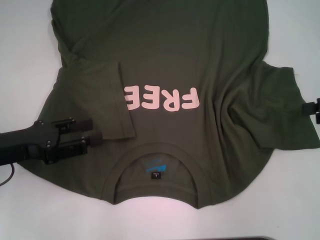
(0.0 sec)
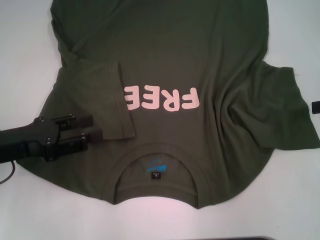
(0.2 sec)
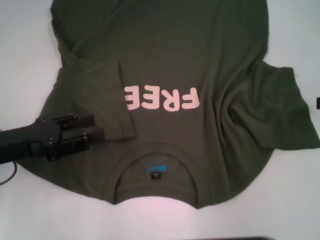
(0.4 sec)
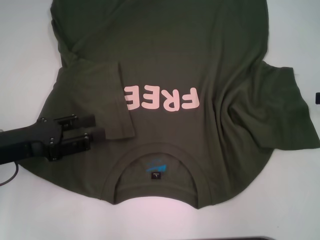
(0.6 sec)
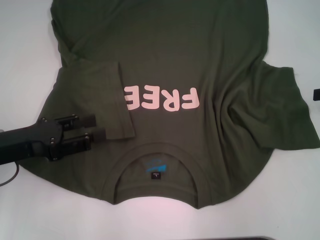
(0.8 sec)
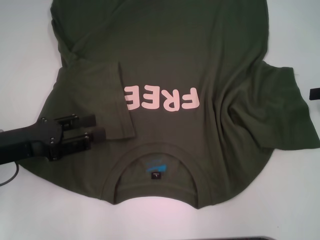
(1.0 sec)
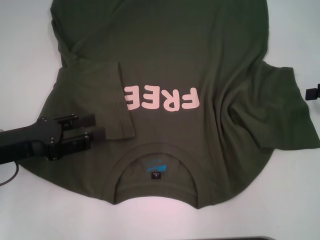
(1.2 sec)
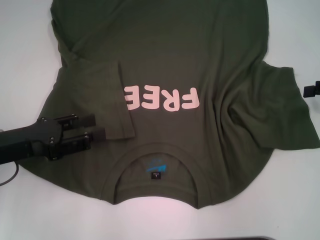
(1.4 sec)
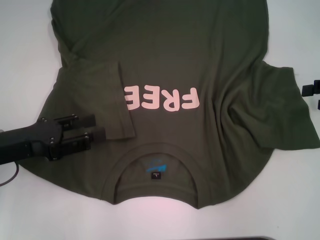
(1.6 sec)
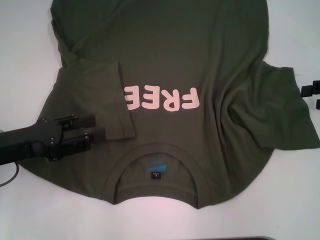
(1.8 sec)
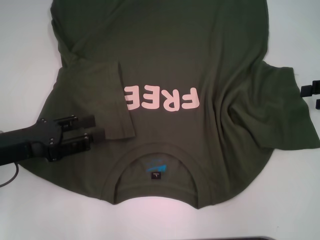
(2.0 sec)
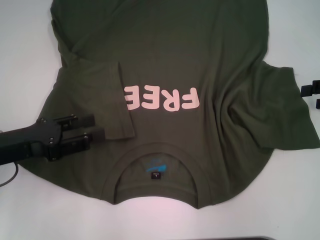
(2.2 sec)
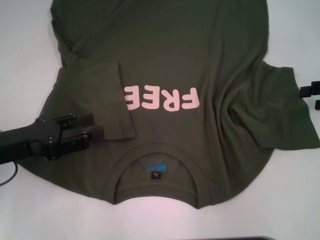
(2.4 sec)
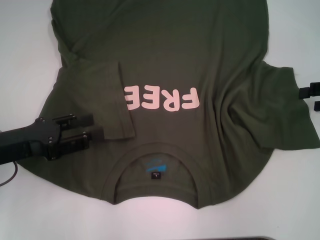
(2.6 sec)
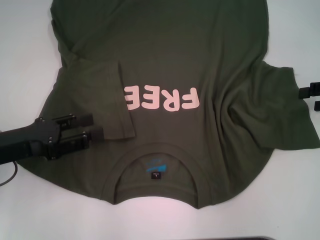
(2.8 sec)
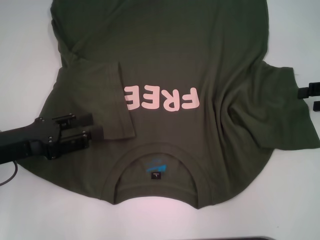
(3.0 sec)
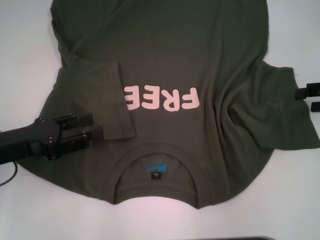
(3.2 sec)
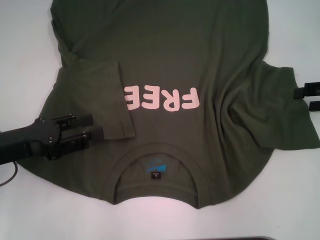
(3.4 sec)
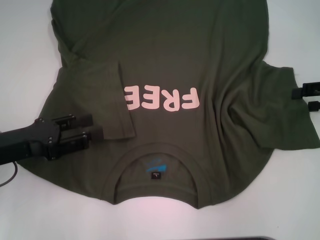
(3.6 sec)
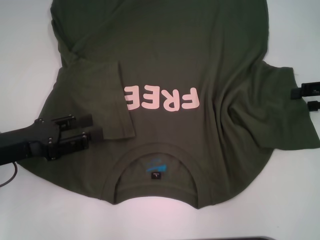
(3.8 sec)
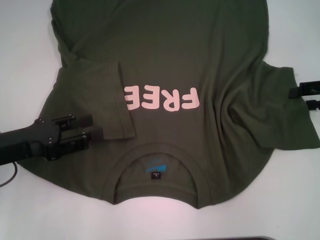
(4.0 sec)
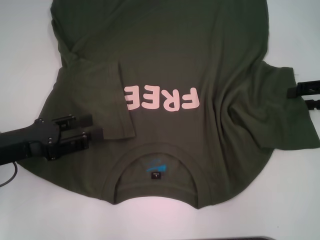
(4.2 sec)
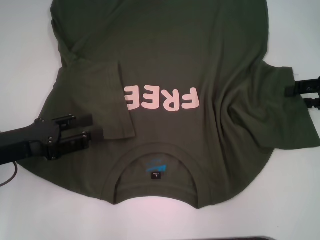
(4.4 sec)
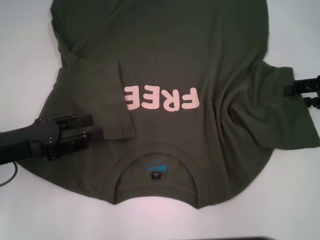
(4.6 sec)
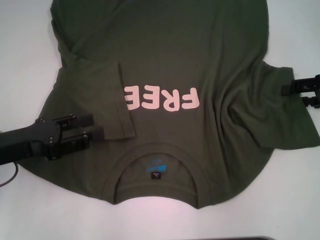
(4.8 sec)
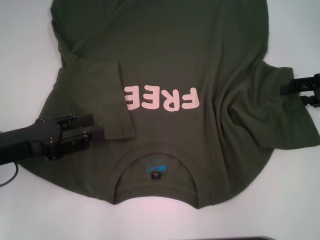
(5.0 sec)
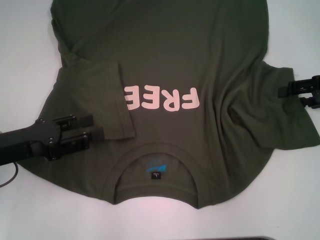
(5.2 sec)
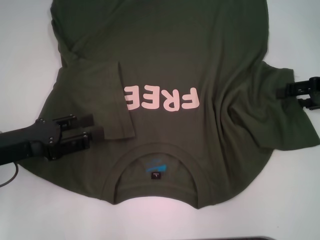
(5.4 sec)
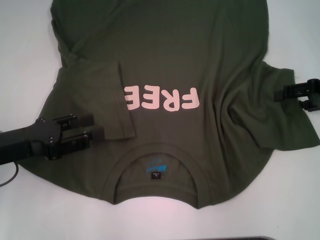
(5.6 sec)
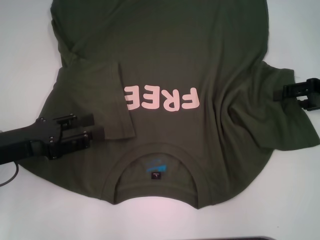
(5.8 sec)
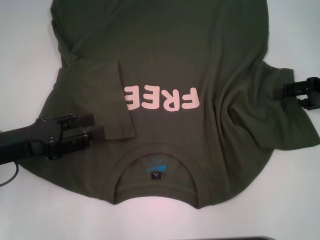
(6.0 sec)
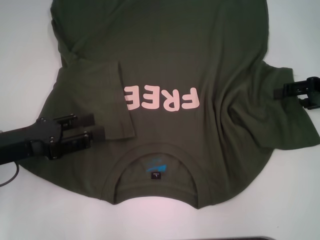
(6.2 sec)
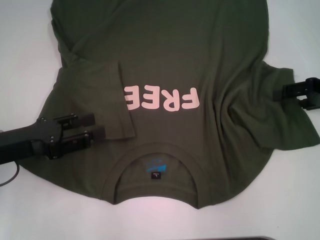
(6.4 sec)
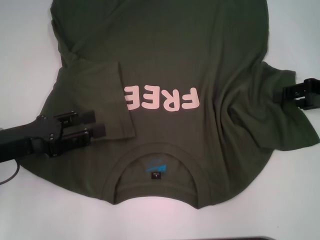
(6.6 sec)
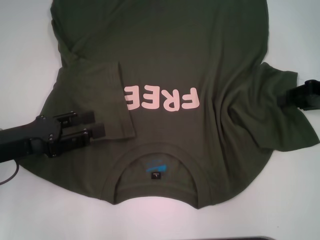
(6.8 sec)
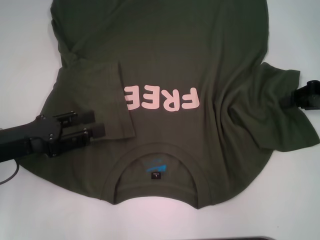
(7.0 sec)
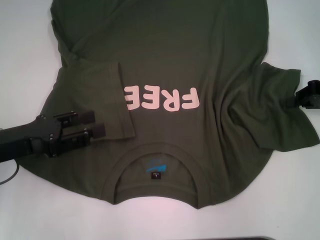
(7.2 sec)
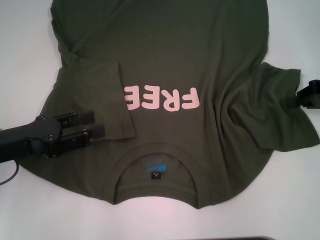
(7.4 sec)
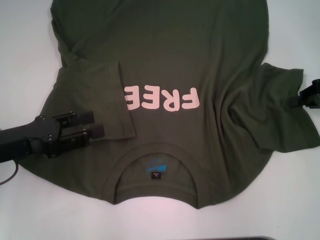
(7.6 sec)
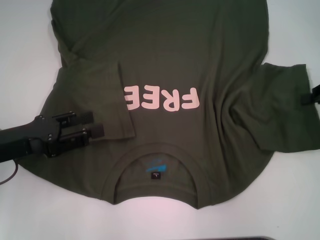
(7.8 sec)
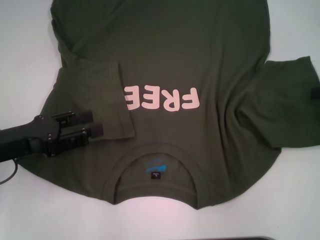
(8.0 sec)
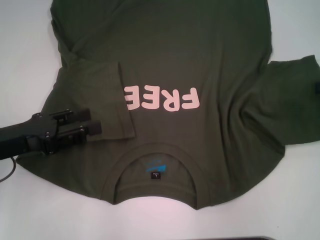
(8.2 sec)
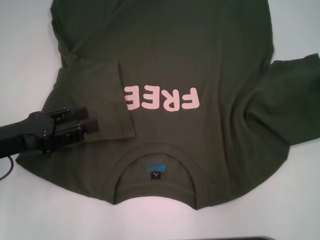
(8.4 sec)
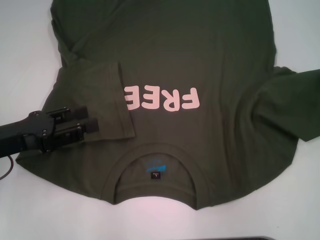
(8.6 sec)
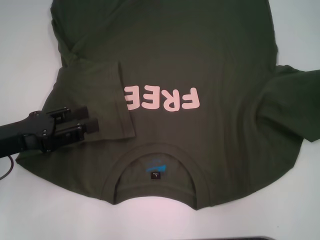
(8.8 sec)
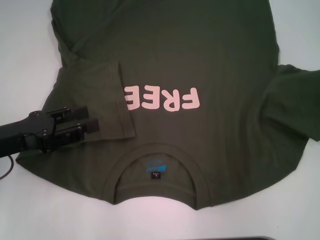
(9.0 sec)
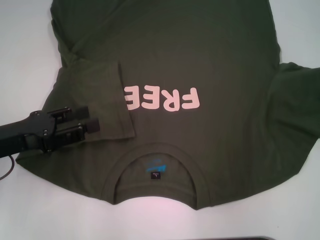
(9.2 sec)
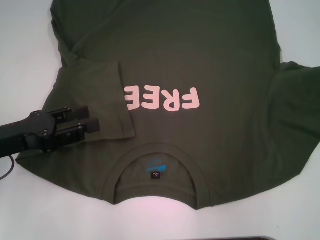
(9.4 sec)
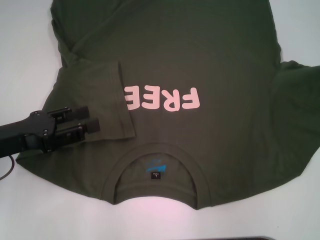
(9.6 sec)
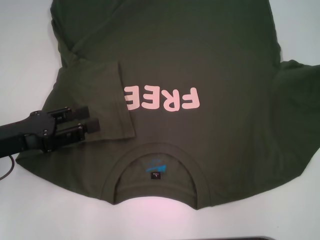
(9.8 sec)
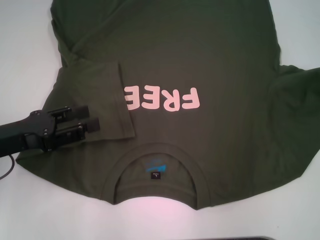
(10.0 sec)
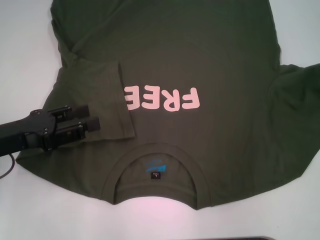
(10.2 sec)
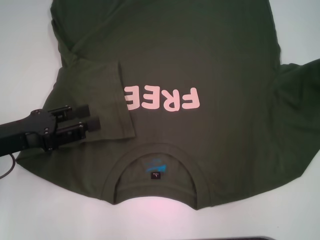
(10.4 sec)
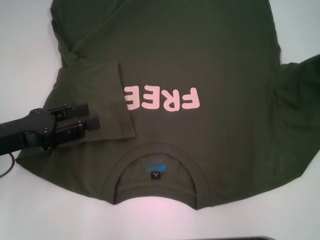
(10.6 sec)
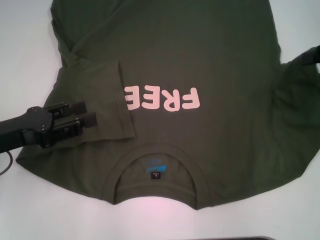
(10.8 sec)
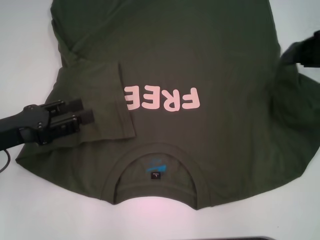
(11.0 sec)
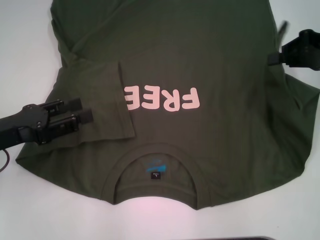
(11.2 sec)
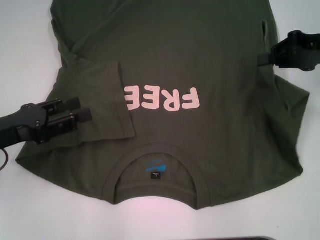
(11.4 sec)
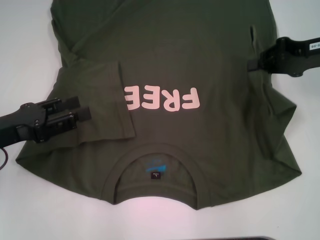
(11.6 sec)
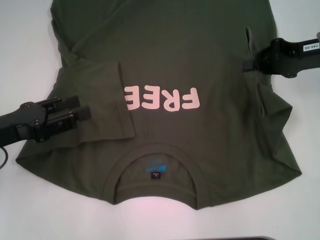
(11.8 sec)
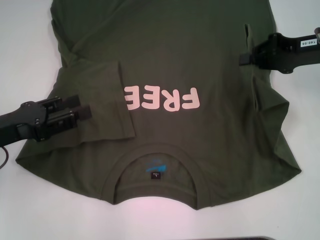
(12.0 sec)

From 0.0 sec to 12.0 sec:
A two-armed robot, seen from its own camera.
From 0.0 sec to 1.6 sec: There are only small adjustments of the grippers.
From 1.6 sec to 3.0 sec: Both grippers stay about where they are.
From 3.0 sec to 4.4 sec: The grippers make only small movements.
From 6.0 sec to 7.6 sec: The right gripper closes its fingers.
From 7.6 sec to 9.0 sec: The right gripper shifts roughly 5 cm to the right.
From 9.0 sec to 10.4 sec: There are only small adjustments of the grippers.
From 10.4 sec to 12.0 sec: The right gripper is displaced to the left by roughly 10 cm.

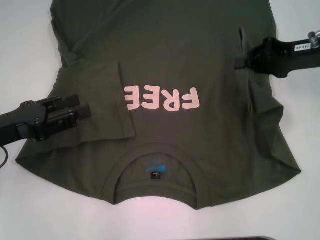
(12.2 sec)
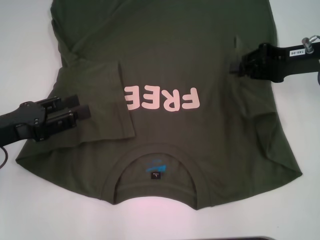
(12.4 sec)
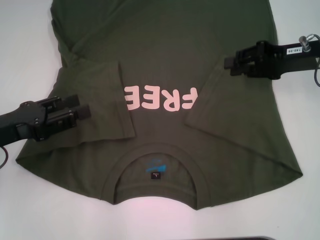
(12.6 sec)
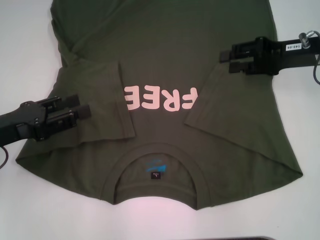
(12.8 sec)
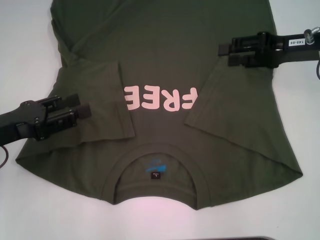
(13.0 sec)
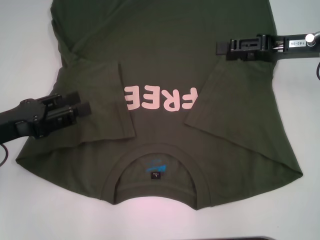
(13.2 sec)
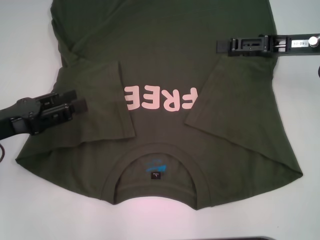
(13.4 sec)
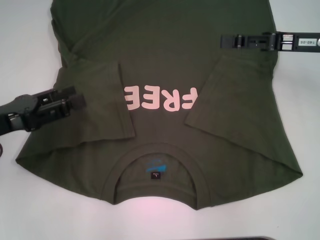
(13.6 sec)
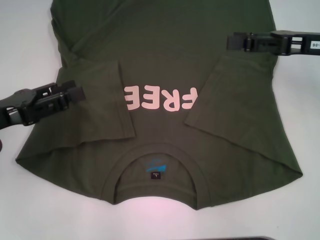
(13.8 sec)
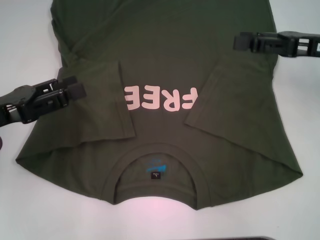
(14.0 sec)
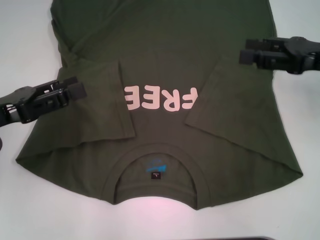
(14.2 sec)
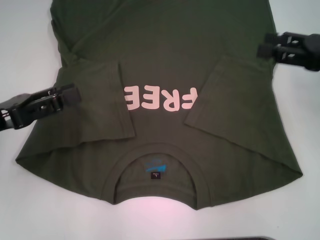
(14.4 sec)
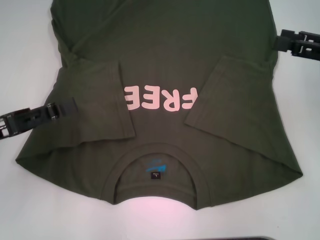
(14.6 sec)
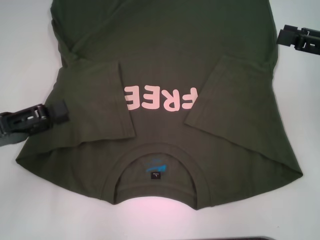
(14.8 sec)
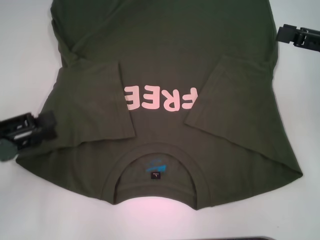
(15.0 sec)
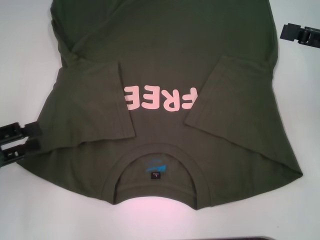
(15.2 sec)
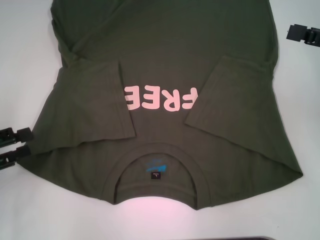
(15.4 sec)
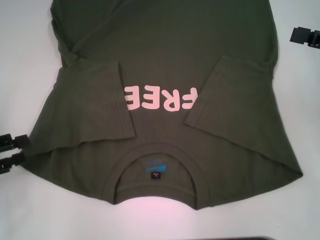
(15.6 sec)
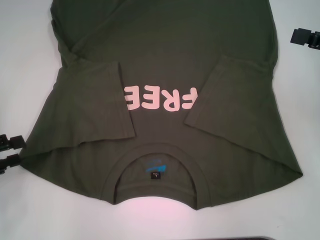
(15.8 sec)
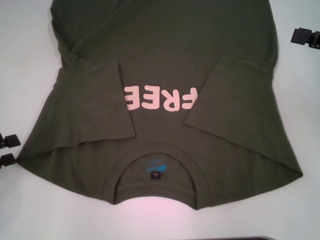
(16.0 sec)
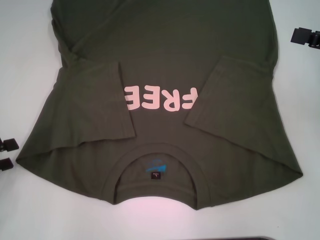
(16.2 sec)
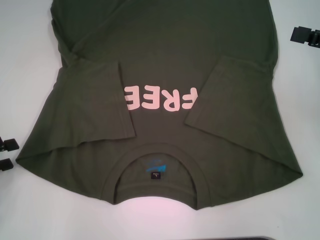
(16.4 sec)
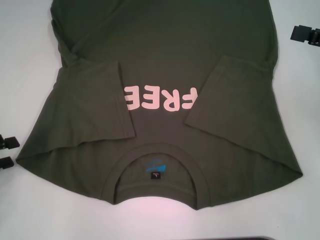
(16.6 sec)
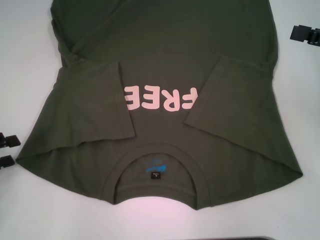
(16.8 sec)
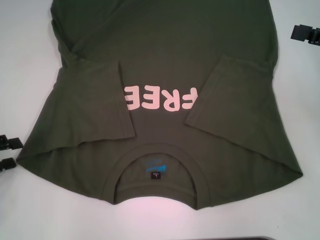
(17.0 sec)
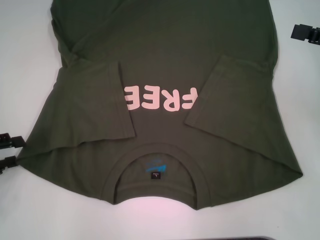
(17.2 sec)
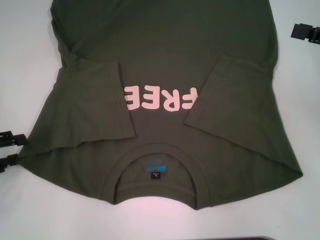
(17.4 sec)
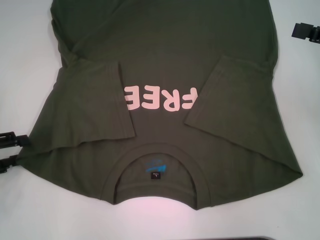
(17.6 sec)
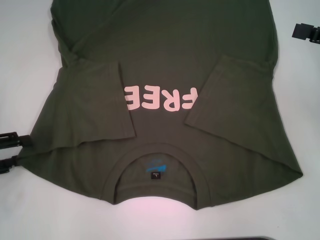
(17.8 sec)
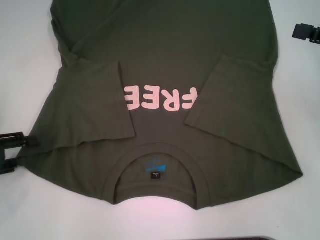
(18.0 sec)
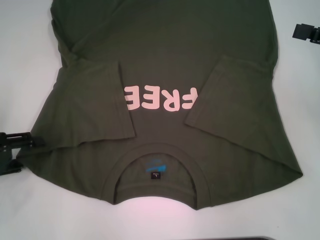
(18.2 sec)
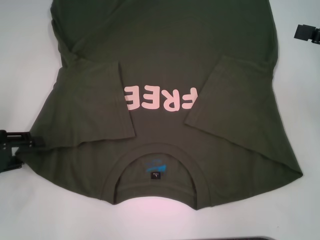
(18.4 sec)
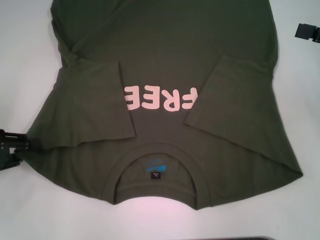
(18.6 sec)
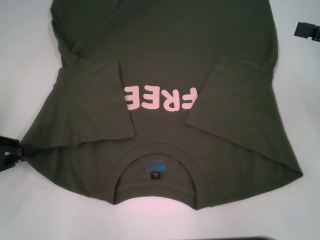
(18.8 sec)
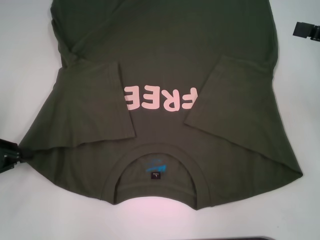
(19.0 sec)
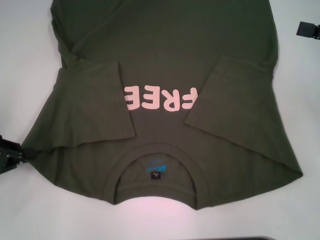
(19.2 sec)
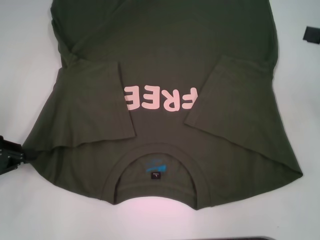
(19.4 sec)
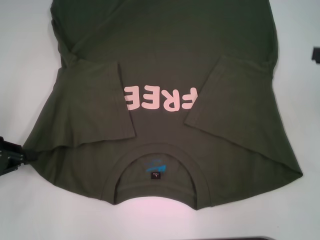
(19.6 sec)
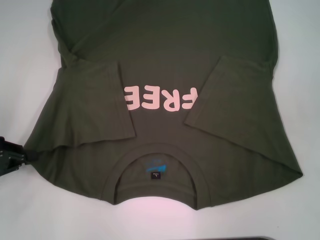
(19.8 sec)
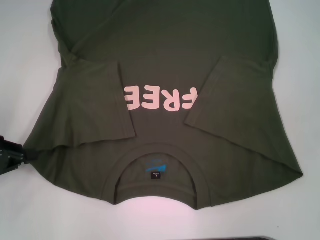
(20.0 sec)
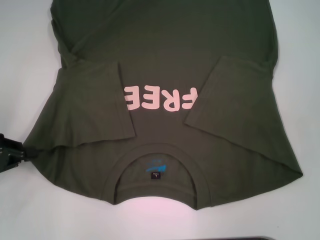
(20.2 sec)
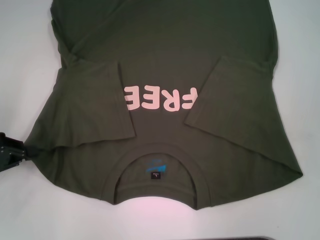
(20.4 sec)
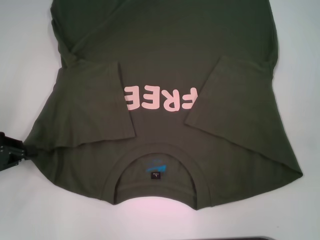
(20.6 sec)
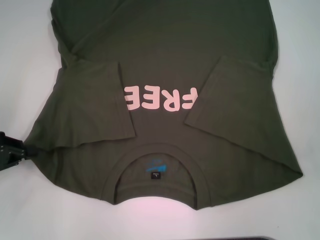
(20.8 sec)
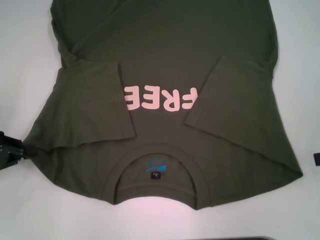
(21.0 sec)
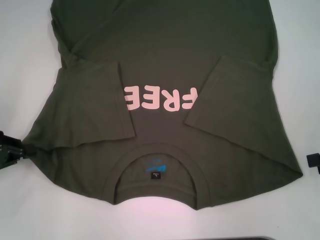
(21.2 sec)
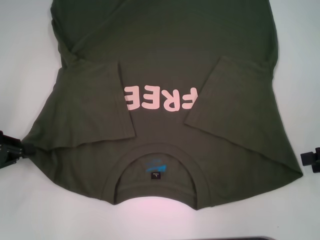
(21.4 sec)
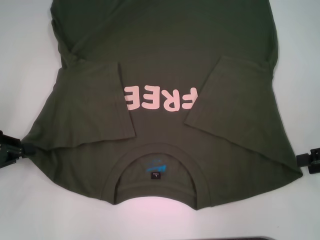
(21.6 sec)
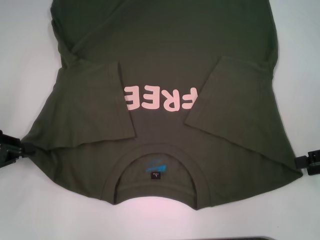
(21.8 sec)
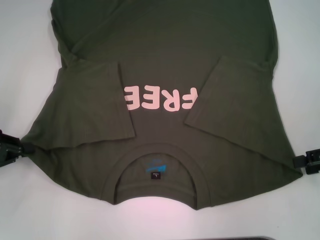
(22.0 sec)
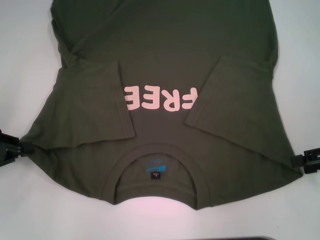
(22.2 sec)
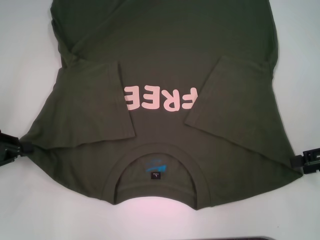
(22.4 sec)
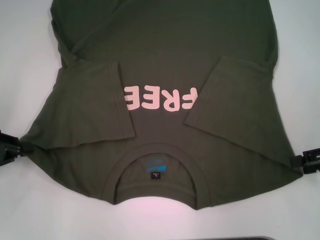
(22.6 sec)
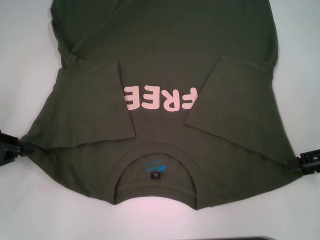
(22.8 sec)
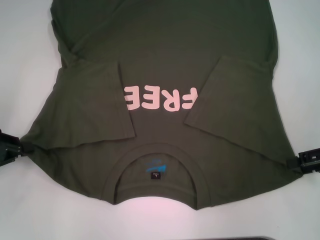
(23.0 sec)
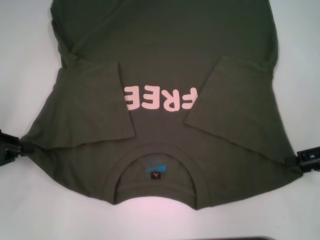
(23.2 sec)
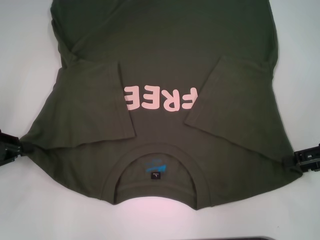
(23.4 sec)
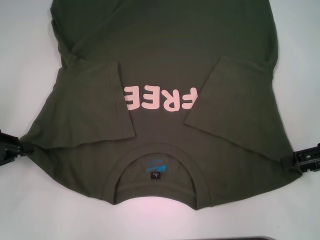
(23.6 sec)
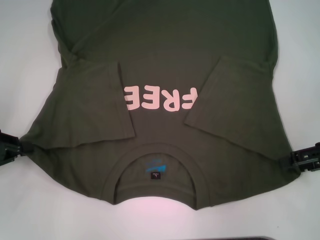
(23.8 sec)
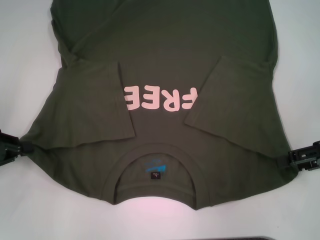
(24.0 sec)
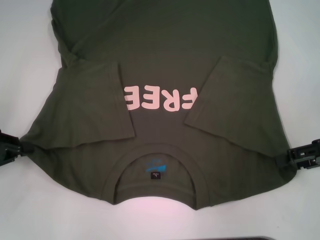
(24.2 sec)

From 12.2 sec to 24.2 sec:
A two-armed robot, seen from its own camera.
Step, from 12.6 sec to 19.2 sec: Grab the bottom left corner with your left hand.
From 12.2 sec to 13.8 sec: The right gripper opens up.
From 13.8 sec to 15.2 sec: The left gripper goes some 5 cm to the left; the right gripper heads to the right, covering about 5 cm.
From 16.6 sec to 18.2 sec: The grippers stay close to where they were, moving slightly.
From 18.2 sec to 19.8 sec: The left gripper closes.
From 21.2 sec to 24.2 sec: The grippers make only small movements.
